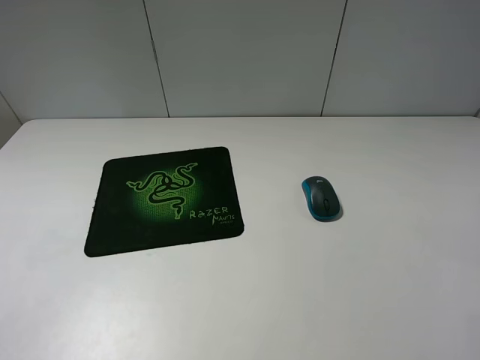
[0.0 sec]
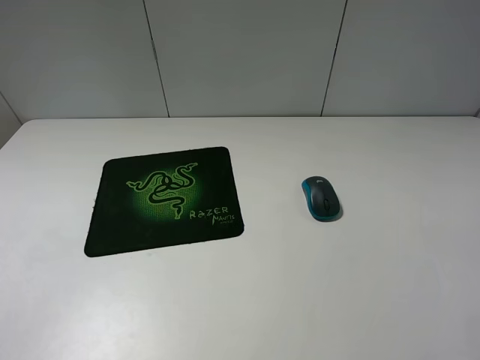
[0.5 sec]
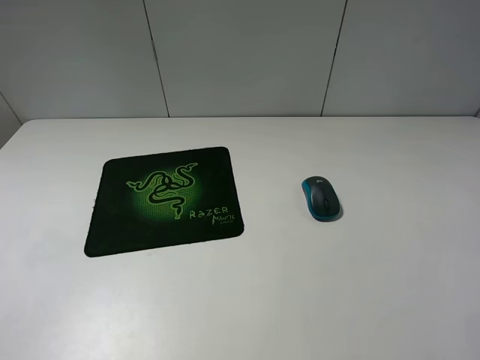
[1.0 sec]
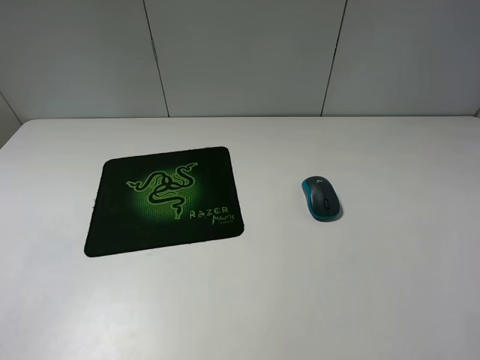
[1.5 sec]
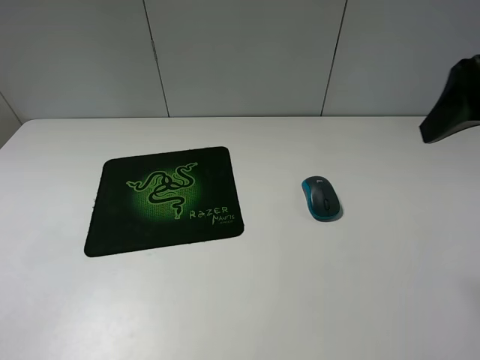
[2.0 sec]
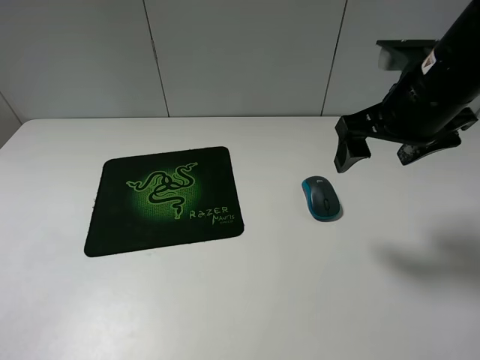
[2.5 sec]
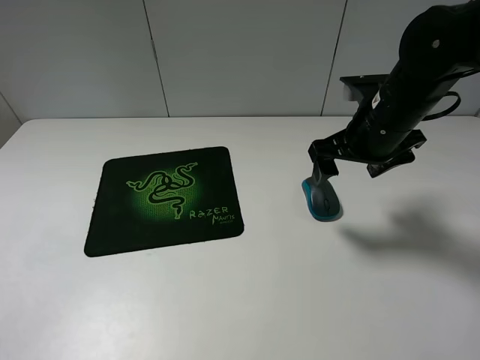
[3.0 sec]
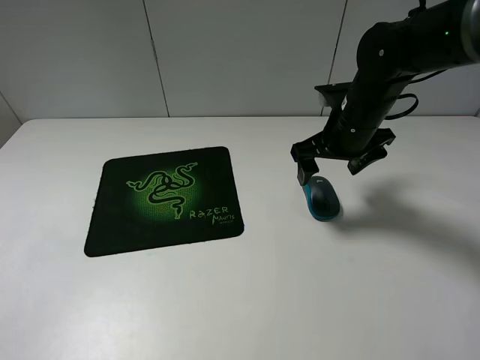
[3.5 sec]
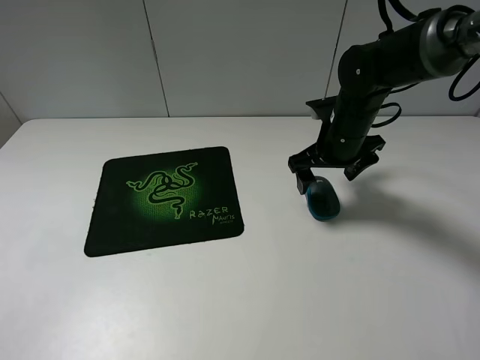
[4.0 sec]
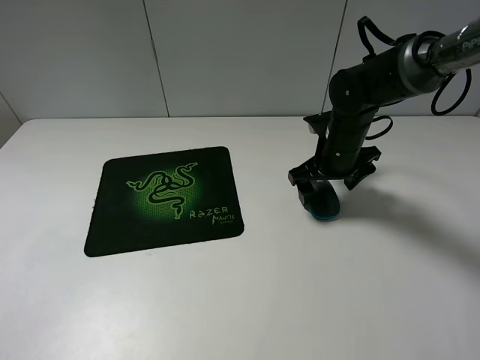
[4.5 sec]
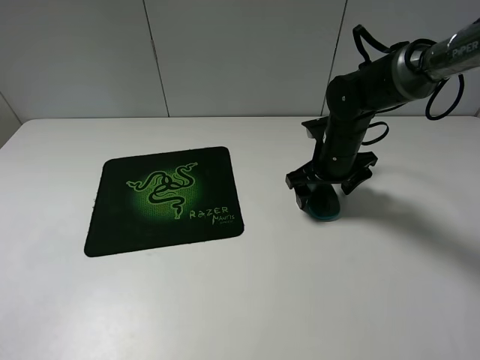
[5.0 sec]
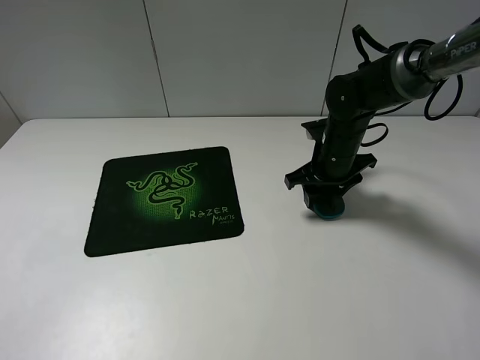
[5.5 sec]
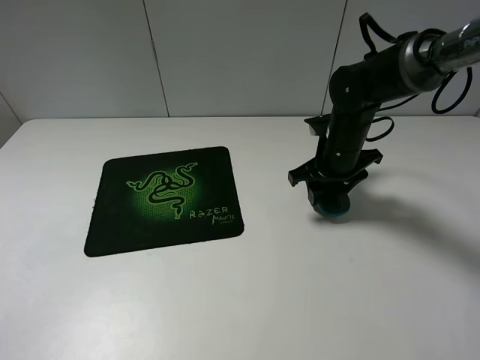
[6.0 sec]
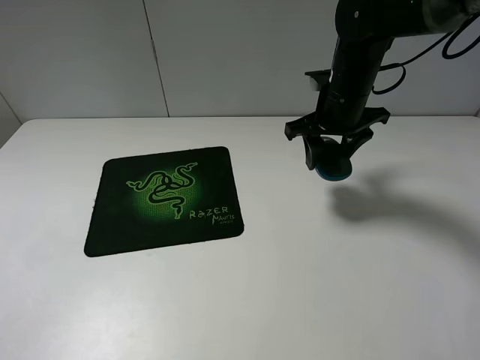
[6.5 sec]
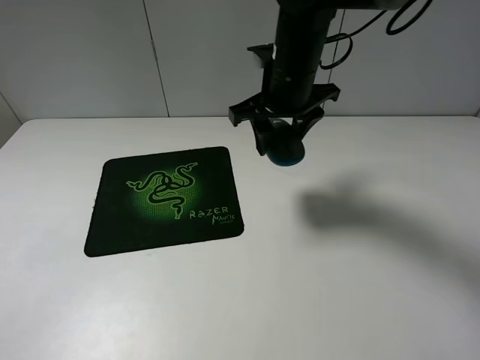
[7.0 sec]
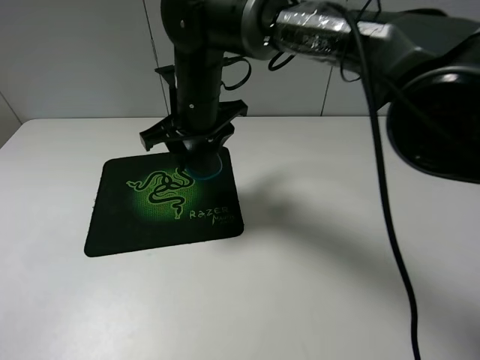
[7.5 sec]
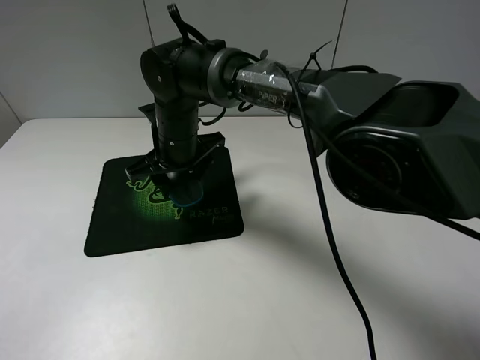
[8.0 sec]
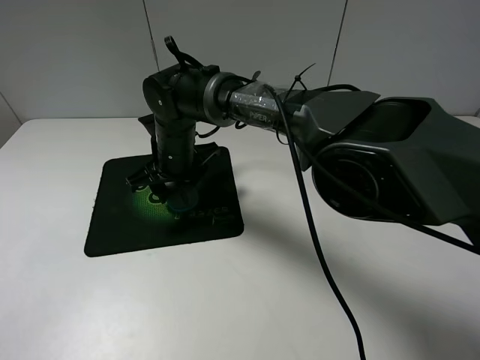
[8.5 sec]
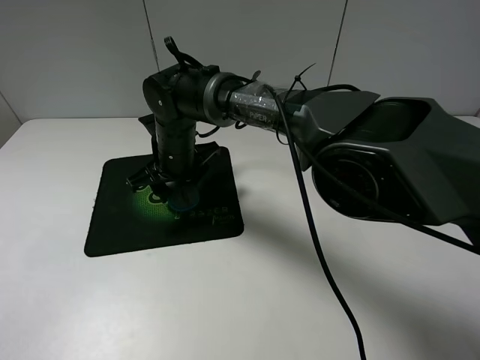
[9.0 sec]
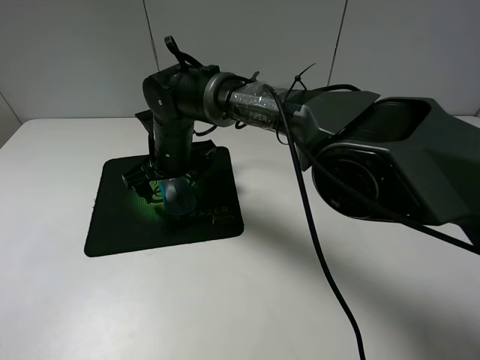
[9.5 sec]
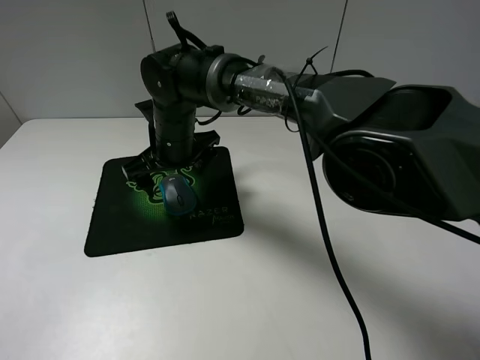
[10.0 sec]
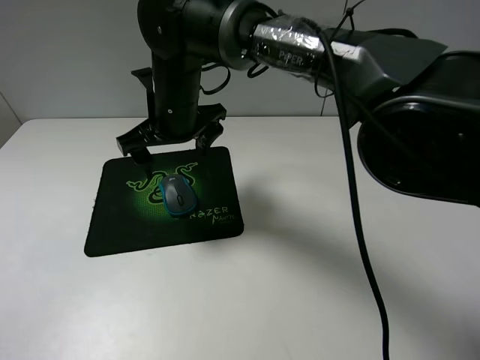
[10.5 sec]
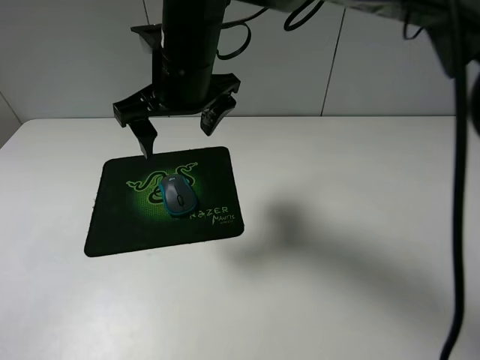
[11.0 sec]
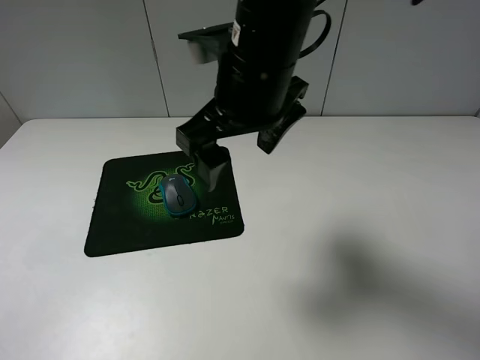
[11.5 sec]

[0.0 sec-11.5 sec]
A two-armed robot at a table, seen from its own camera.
Step, 0.0 sec to 5.5 sec: Grasp the mouse with the right gripper.
Step, 6.0 sec to 9.5 sec: Place the mouse on the mouse mat with the right gripper.
0.0 sec to 2.0 sec: The right gripper is displaced forward by approximately 20 cm.
2.0 sec to 4.0 sec: The right gripper goes about 25 cm downward, forward and to the left.
4.0 sec to 6.0 sec: The right gripper closes up.
6.0 sec to 7.5 sec: The right gripper shifts approximately 20 cm to the left.
7.5 sec to 9.5 sec: The right gripper heads downward, covering about 10 cm, and opens.
9.5 sec to 11.5 sec: The right gripper is displaced upward, to the right and backward by approximately 25 cm.

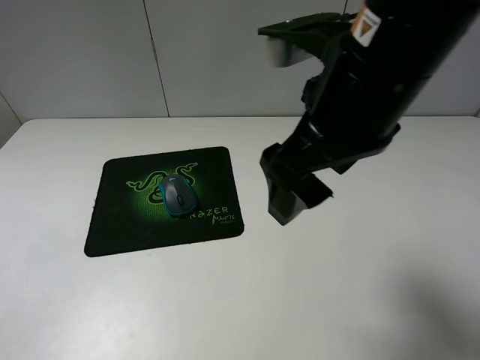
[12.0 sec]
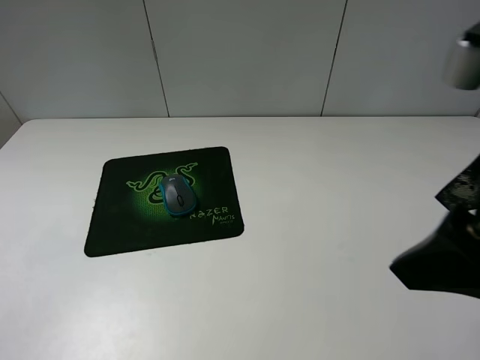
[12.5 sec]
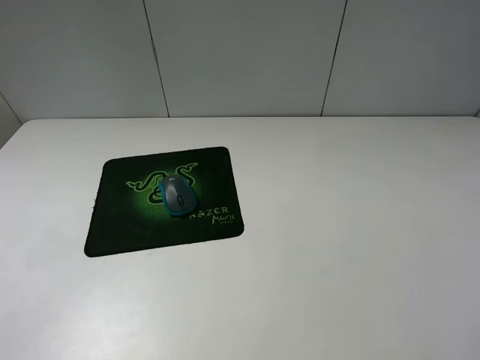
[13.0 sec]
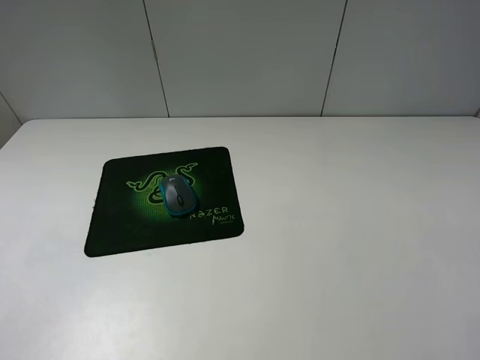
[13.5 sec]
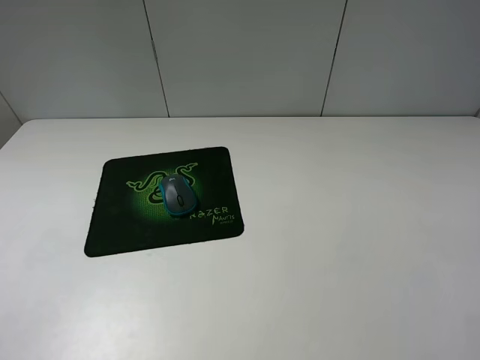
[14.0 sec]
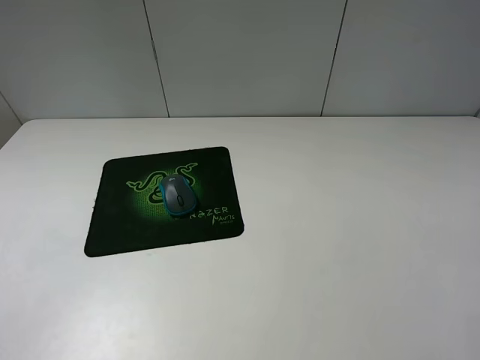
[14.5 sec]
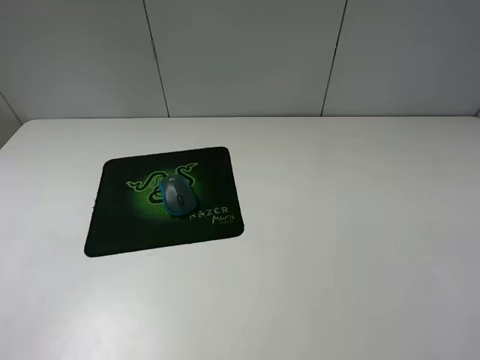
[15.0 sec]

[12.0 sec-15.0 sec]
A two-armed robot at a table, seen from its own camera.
12.0 sec to 13.5 sec: The right gripper heads to the right and backward, covering approximately 30 cm.
13.5 sec to 15.0 sec: The two grippers keep their place.
